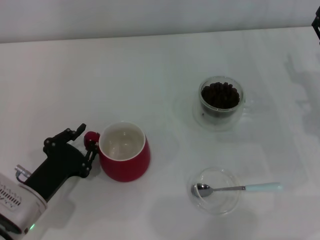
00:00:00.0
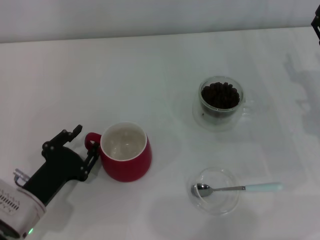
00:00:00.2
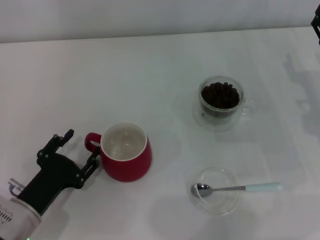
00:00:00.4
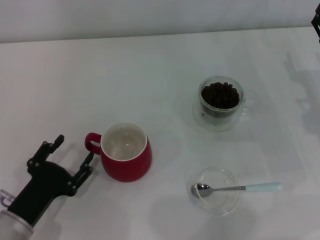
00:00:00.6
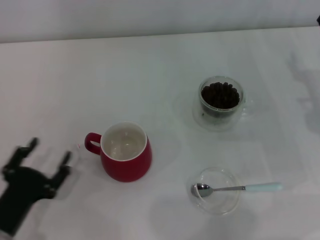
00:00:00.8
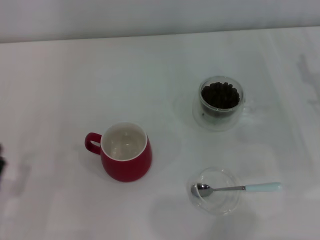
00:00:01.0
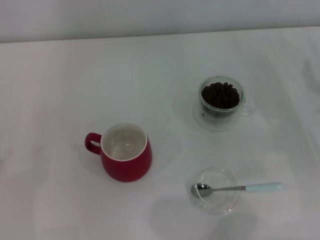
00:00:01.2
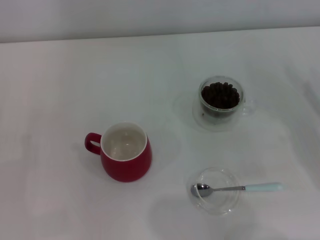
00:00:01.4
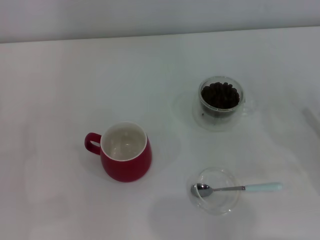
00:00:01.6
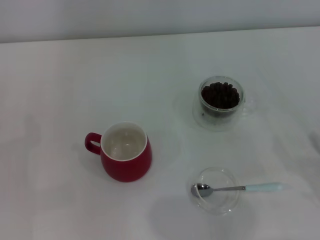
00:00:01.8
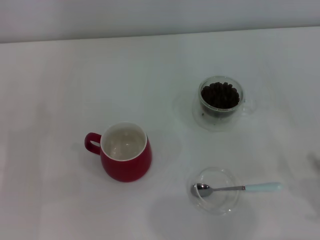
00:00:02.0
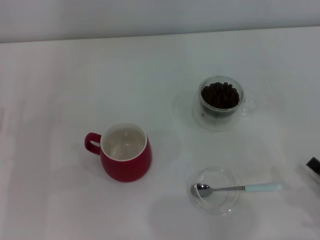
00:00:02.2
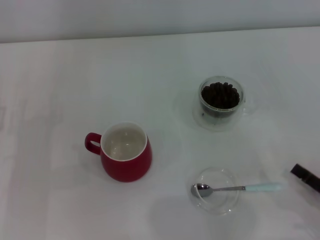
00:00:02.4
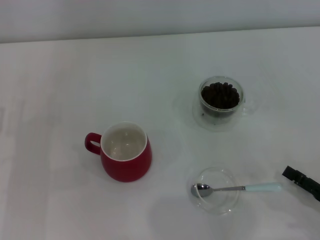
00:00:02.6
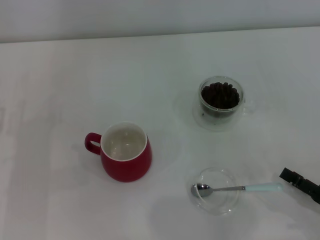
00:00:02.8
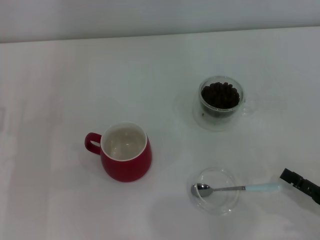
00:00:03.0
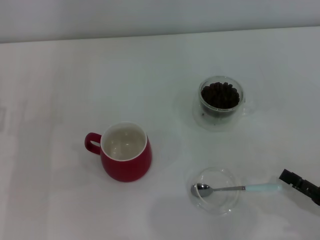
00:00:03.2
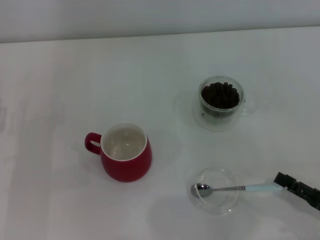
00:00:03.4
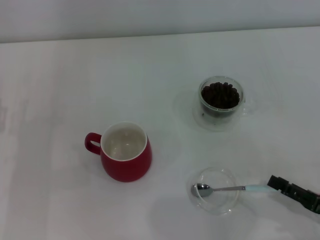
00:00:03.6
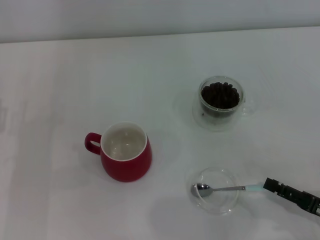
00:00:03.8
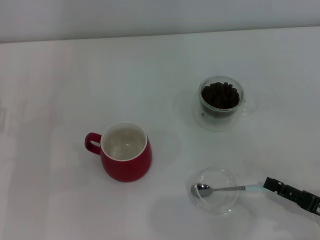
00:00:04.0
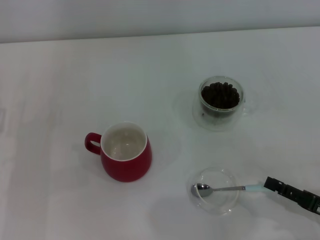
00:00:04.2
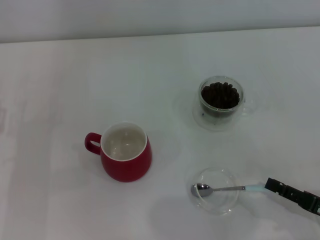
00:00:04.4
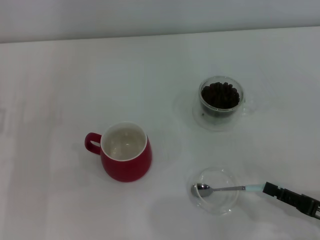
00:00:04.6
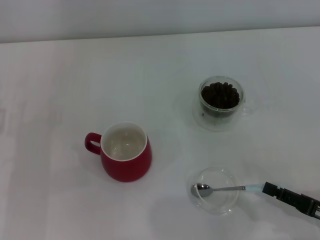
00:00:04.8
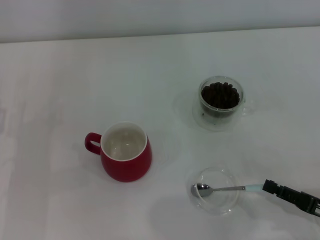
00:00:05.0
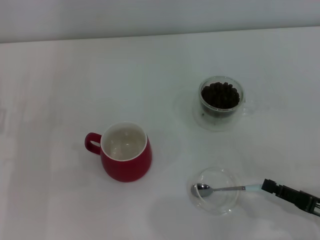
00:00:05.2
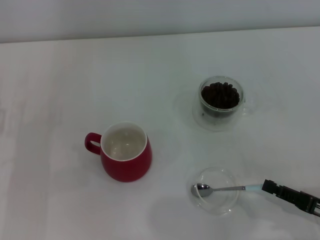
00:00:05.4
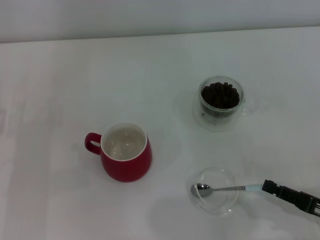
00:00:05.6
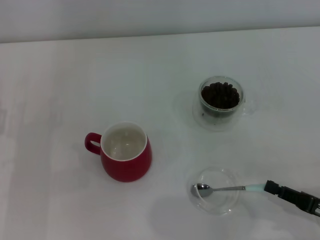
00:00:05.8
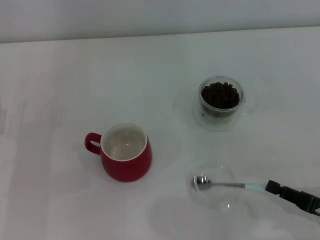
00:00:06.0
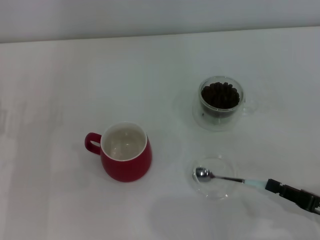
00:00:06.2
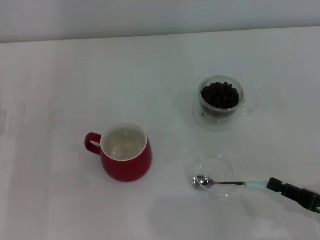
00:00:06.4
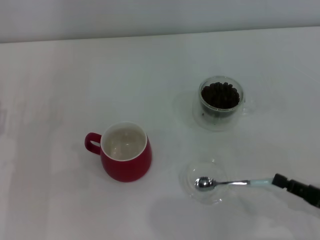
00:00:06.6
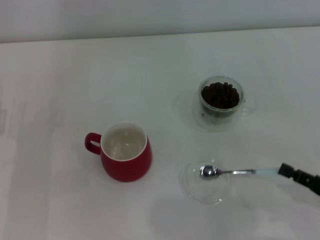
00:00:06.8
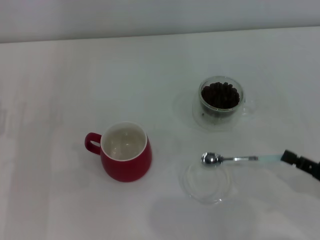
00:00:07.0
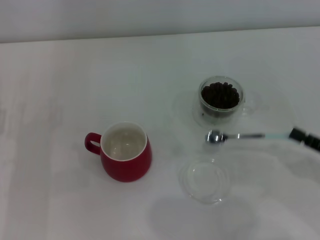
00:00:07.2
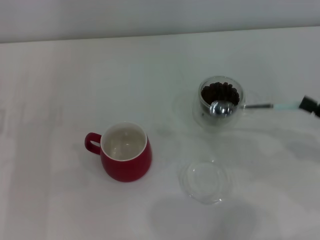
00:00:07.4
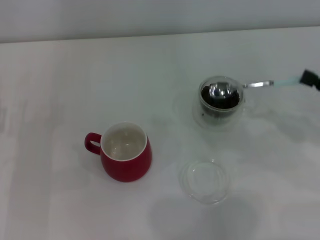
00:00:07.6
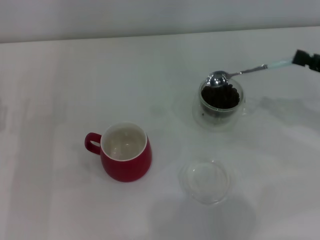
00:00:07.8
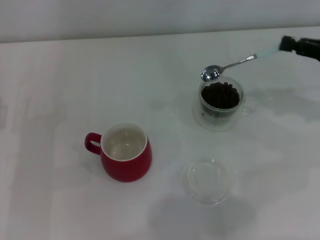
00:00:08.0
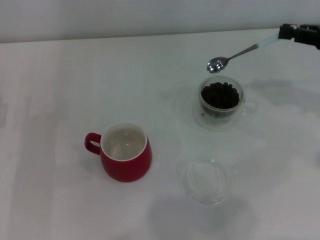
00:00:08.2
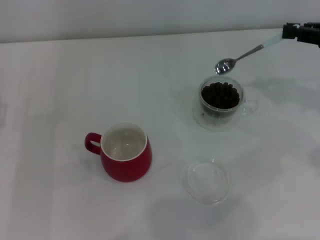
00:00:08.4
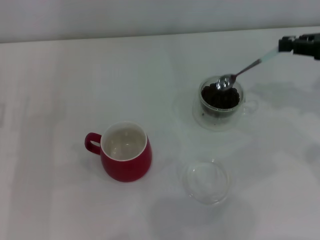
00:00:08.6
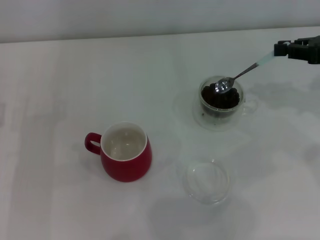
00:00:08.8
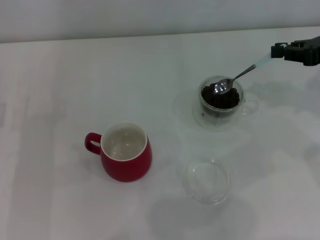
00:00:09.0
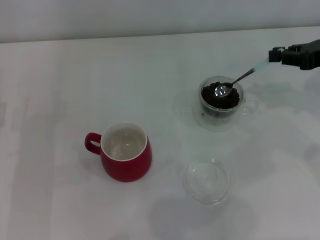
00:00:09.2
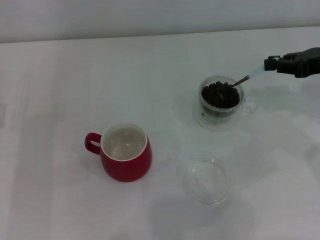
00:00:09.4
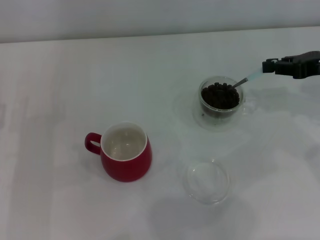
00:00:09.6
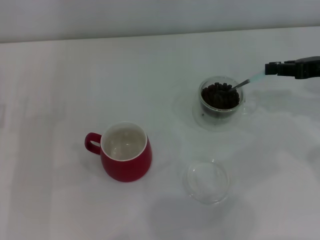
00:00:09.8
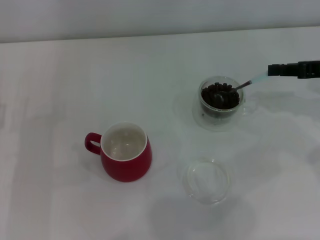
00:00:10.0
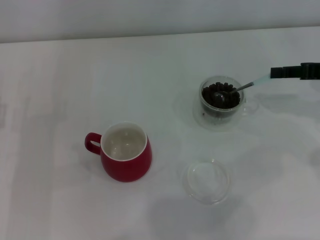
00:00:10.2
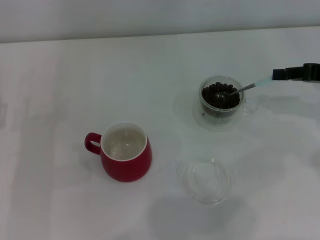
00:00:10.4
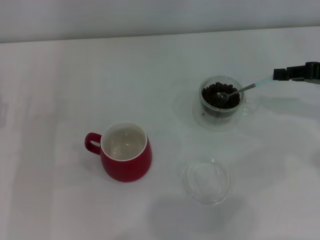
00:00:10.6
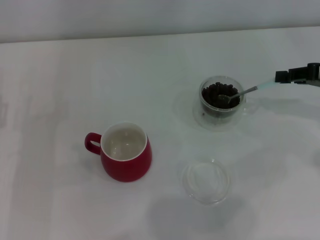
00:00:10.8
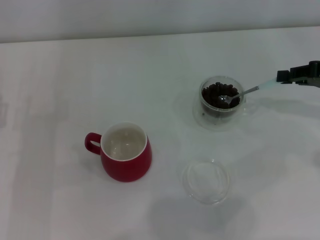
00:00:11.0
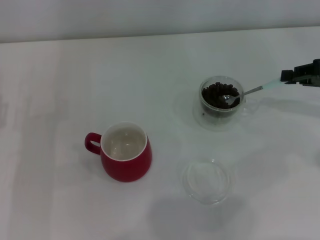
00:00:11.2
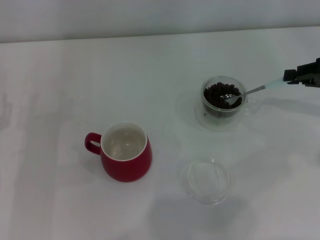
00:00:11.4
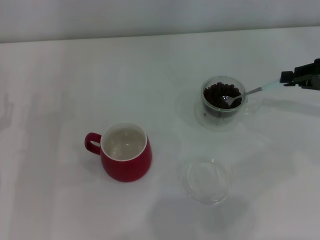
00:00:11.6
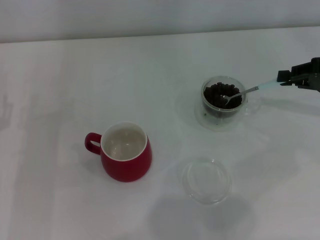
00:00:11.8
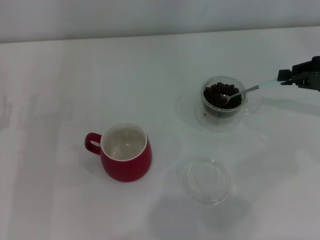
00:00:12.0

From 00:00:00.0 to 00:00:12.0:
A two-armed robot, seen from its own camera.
Task of the whole recording: Use a blue spoon to take out the coffee beans from the glass and pour them into the red cup.
Step, from 00:00:00.8 to 00:00:07.0: Pick up the spoon with the right gripper.
From 00:00:00.0 to 00:00:01.6: The left gripper goes approximately 10 cm to the left, and opens its fingers, while the right gripper travels backward and to the right by about 15 cm.
From 00:00:01.6 to 00:00:03.0: The right gripper travels backward by approximately 5 cm.
From 00:00:03.0 to 00:00:04.4: There are only small adjustments of the grippers.
From 00:00:04.4 to 00:00:06.0: The right gripper closes.
From 00:00:06.0 to 00:00:07.6: The right gripper heads forward and upward, covering about 15 cm.
From 00:00:07.6 to 00:00:09.0: The right gripper heads forward and upward, covering roughly 10 cm.

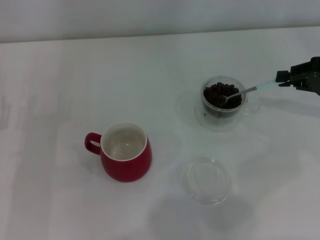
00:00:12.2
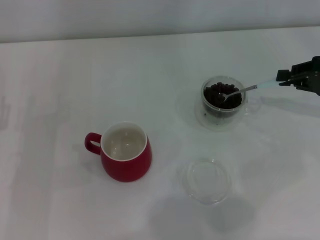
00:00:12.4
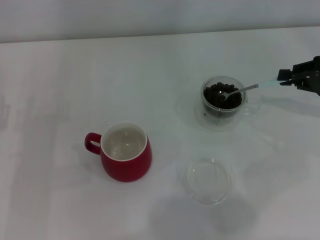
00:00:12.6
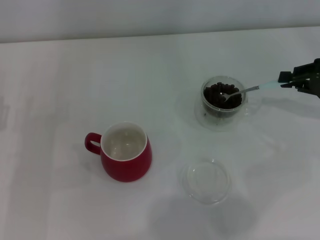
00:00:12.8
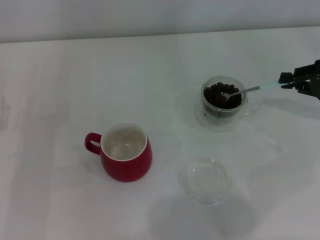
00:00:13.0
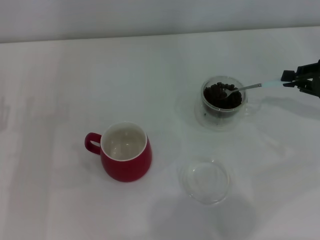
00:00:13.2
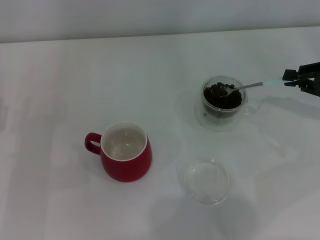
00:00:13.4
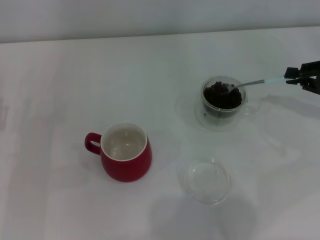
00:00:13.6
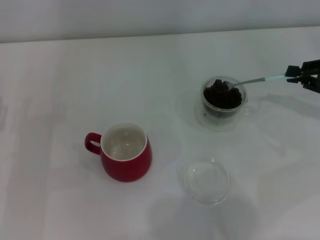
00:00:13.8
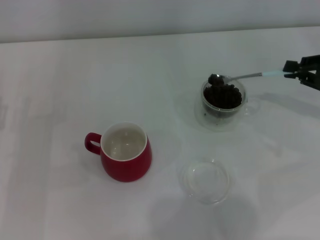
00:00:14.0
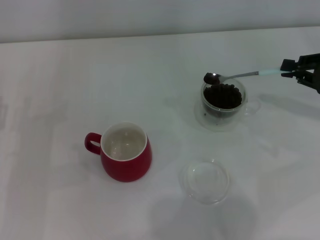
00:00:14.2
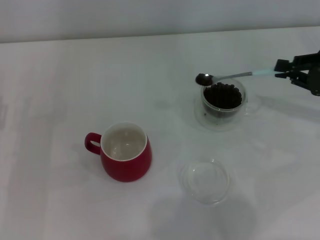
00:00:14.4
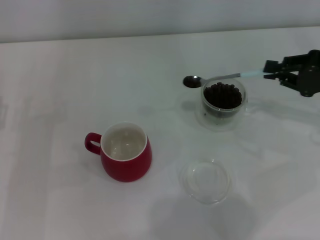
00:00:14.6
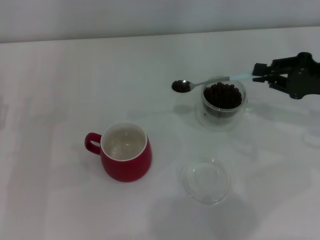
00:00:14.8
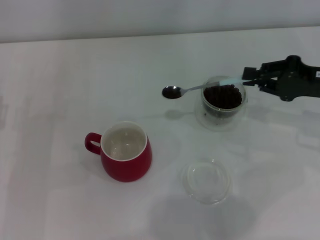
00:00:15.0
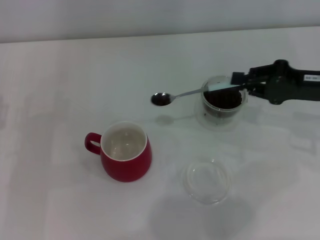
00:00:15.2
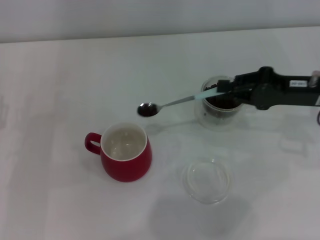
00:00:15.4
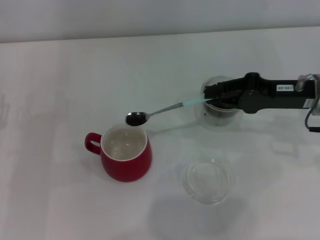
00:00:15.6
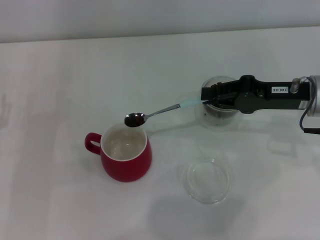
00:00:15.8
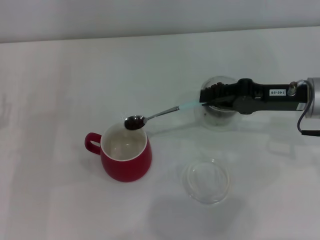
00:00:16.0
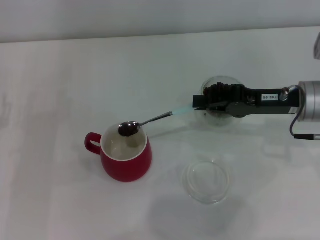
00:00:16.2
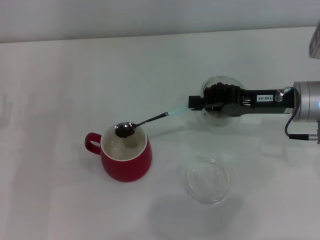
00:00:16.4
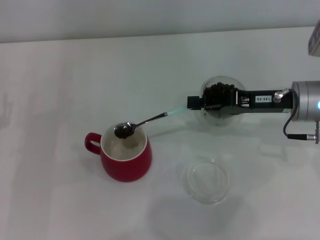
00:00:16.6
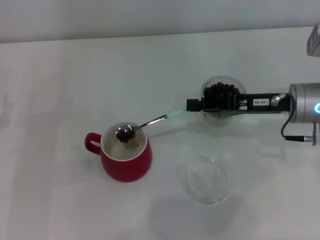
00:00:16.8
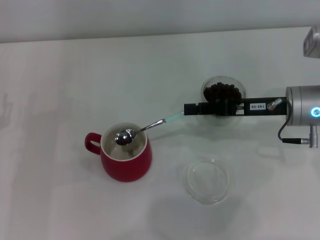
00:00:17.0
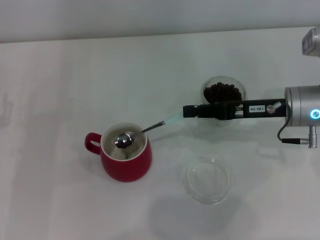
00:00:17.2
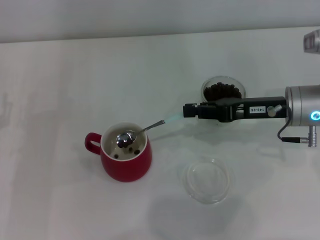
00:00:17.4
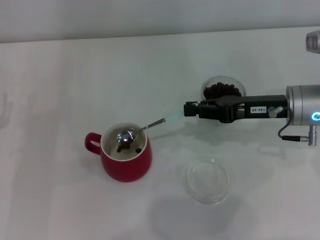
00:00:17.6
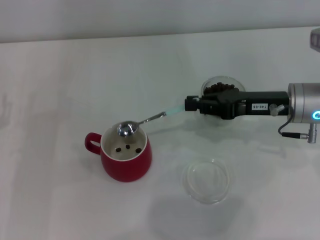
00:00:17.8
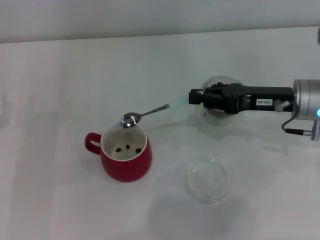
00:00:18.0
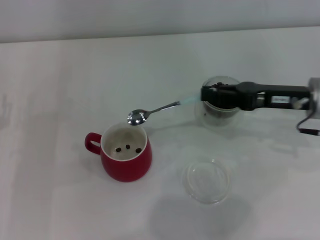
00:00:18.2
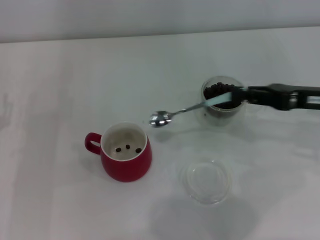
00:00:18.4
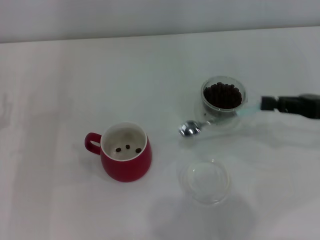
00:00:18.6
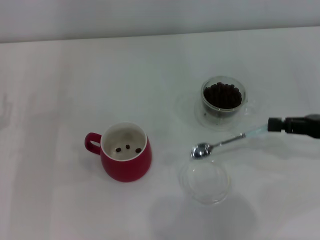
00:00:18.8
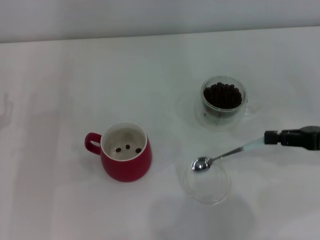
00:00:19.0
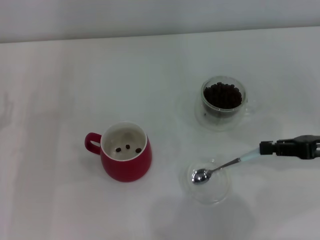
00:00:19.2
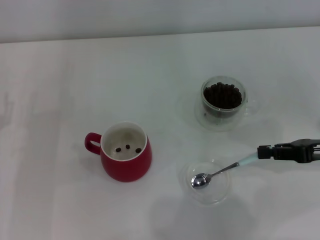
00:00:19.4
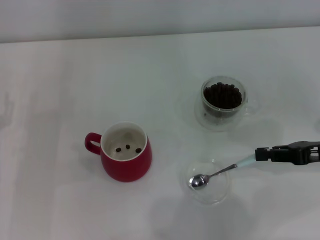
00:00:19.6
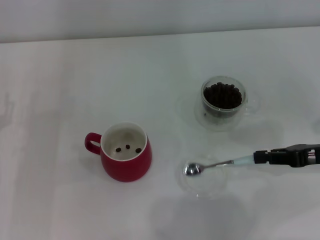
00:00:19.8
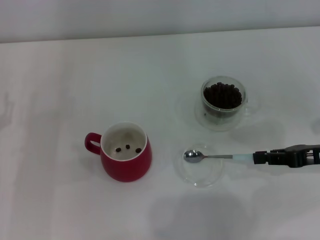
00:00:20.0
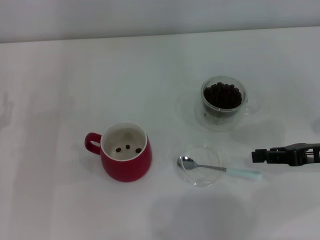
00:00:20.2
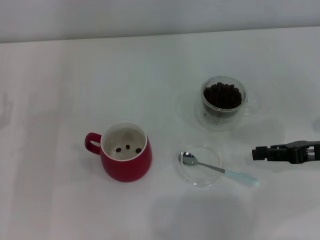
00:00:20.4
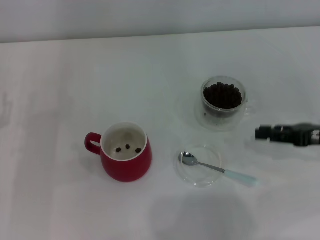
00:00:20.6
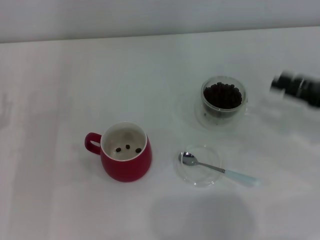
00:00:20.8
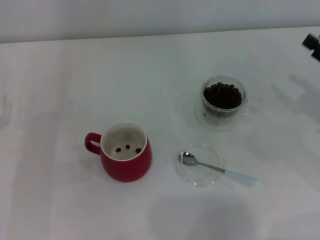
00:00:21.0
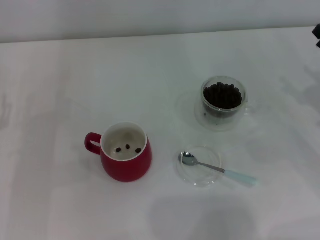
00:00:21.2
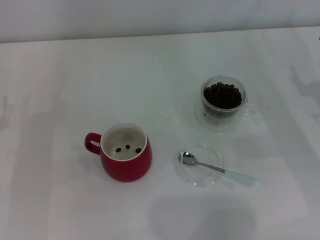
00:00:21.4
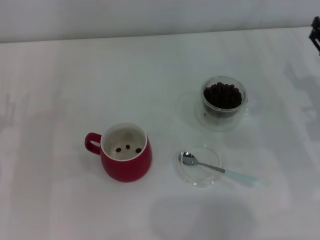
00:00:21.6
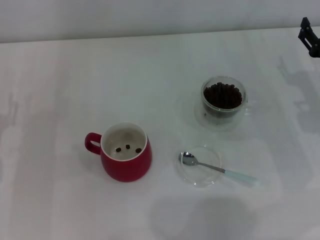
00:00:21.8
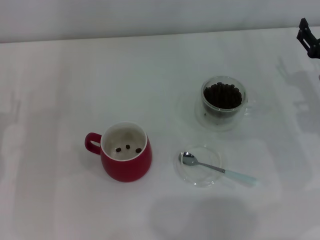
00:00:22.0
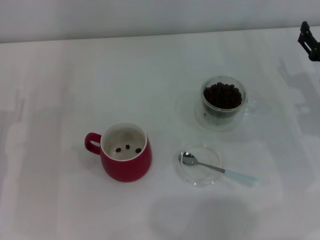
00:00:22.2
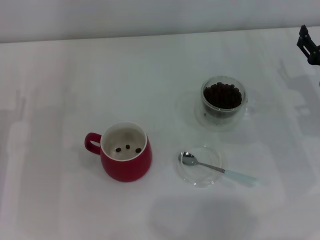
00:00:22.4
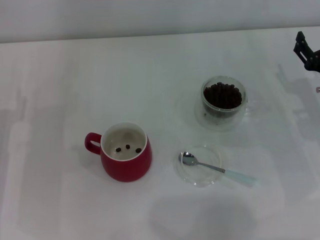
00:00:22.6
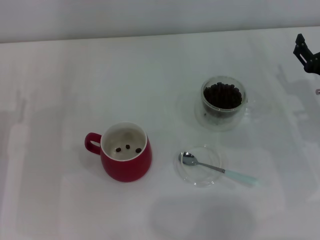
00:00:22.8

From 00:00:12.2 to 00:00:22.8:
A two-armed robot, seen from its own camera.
Task of the whole recording: Use a blue spoon to take out the coffee beans from the glass and pour them into the red cup.
Step, from 00:00:12.2 to 00:00:18.2: Scoop a spoonful of beans into the cup with the right gripper.
Step, from 00:00:18.4 to 00:00:20.4: Place the spoon back in its original place with the right gripper.
From 00:00:12.2 to 00:00:13.8: There are only small adjustments of the grippers.
From 00:00:13.8 to 00:00:15.2: The right gripper moves to the left, roughly 10 cm.
From 00:00:15.2 to 00:00:16.8: The right gripper shifts roughly 5 cm to the left.
From 00:00:18.2 to 00:00:19.8: The right gripper moves to the right and backward, some 10 cm.
From 00:00:19.8 to 00:00:21.2: The right gripper opens.
From 00:00:21.2 to 00:00:22.8: The right gripper shifts by approximately 5 cm.
